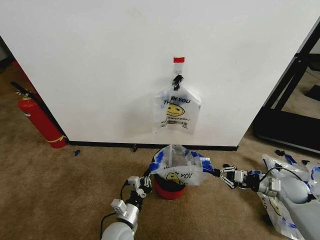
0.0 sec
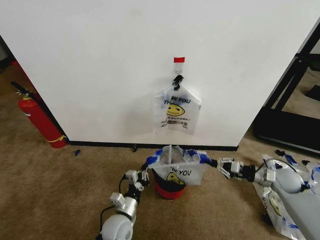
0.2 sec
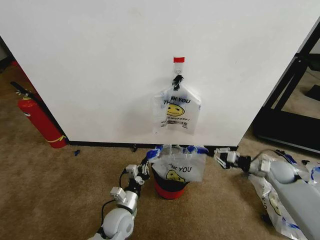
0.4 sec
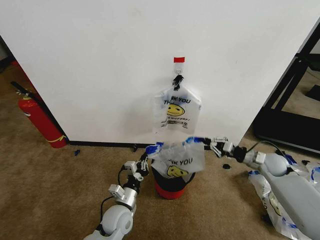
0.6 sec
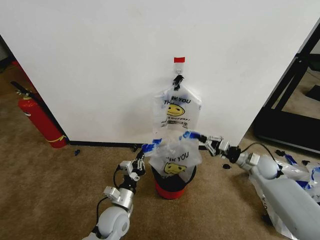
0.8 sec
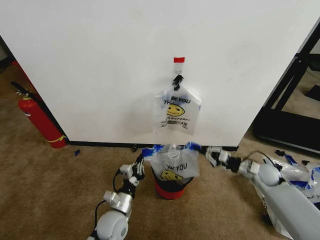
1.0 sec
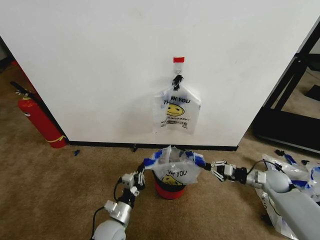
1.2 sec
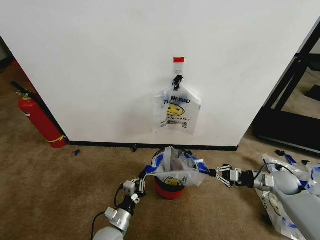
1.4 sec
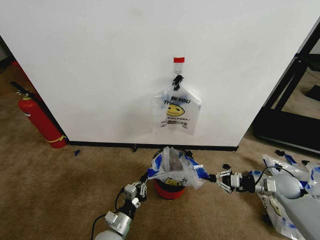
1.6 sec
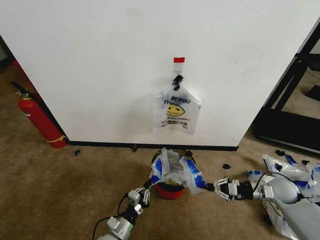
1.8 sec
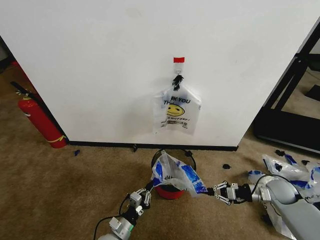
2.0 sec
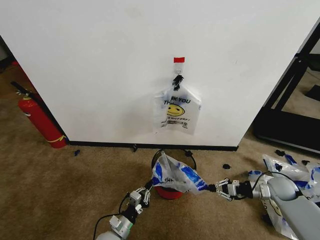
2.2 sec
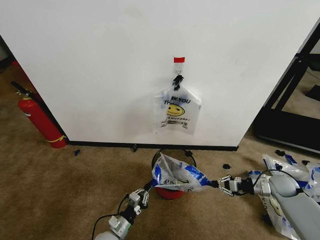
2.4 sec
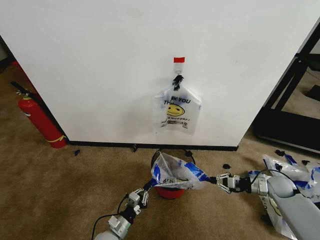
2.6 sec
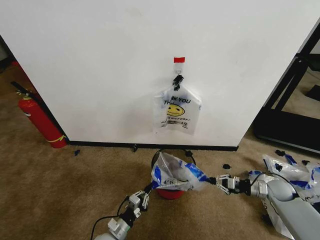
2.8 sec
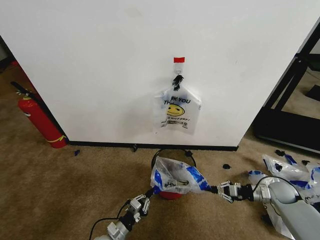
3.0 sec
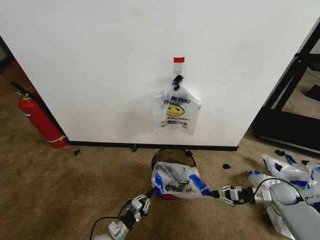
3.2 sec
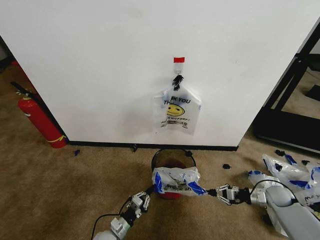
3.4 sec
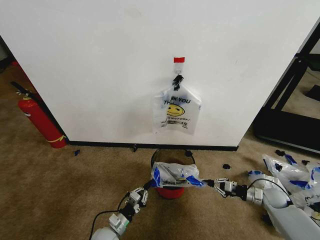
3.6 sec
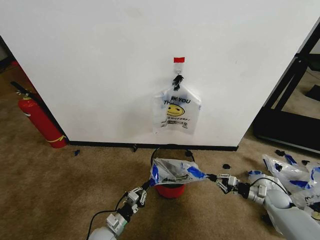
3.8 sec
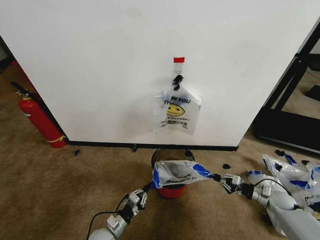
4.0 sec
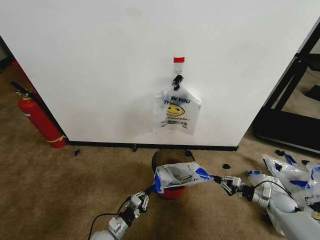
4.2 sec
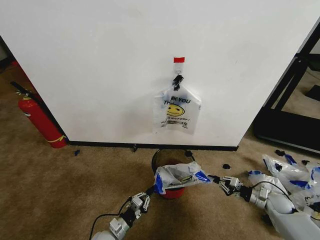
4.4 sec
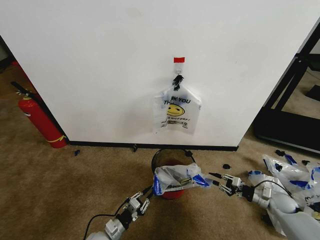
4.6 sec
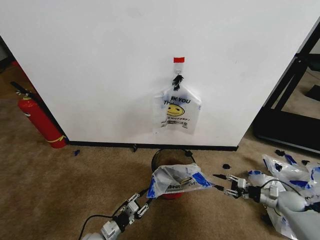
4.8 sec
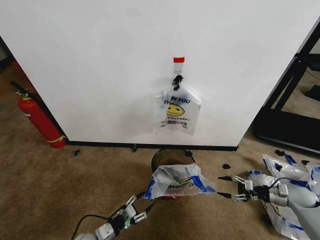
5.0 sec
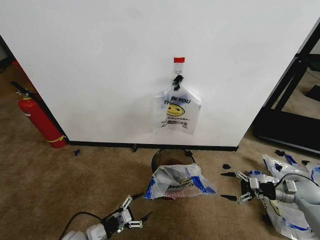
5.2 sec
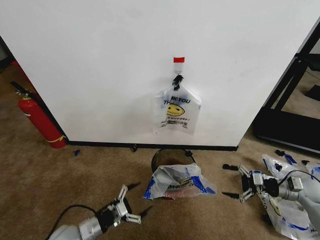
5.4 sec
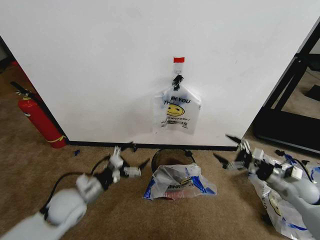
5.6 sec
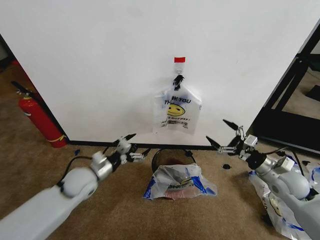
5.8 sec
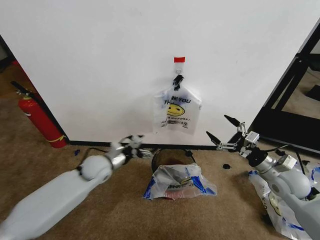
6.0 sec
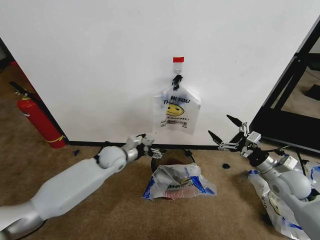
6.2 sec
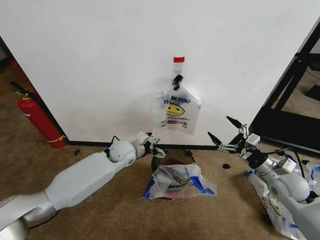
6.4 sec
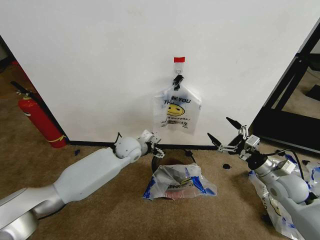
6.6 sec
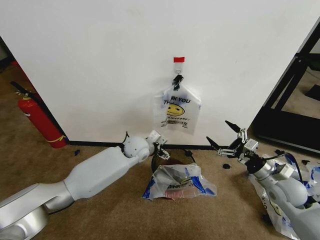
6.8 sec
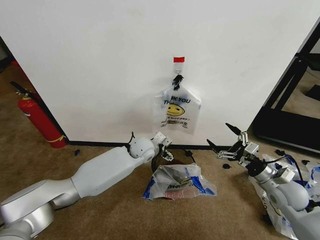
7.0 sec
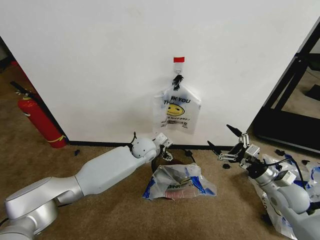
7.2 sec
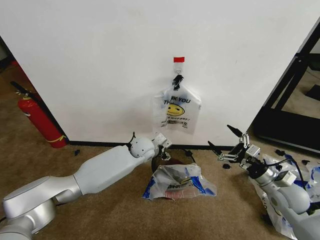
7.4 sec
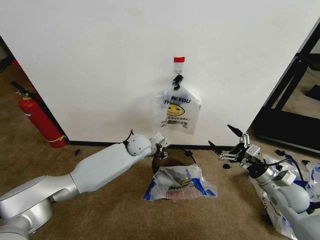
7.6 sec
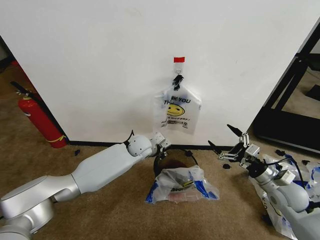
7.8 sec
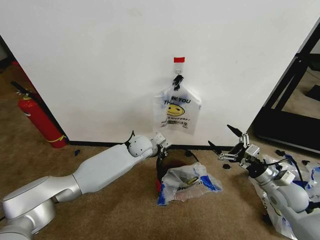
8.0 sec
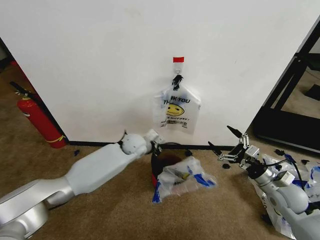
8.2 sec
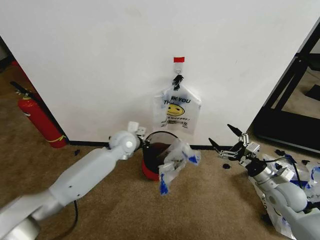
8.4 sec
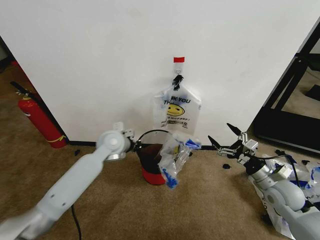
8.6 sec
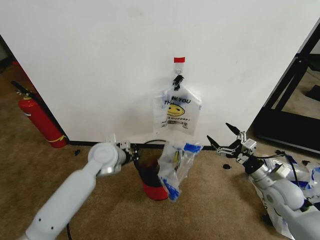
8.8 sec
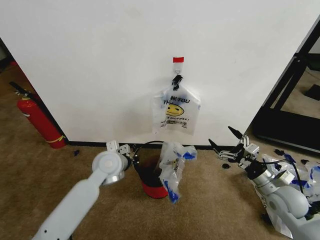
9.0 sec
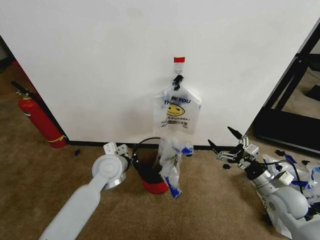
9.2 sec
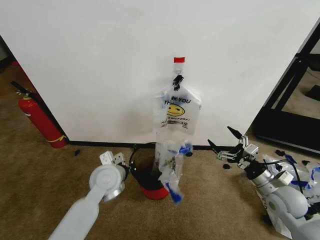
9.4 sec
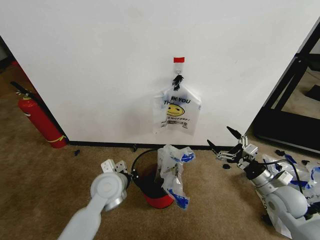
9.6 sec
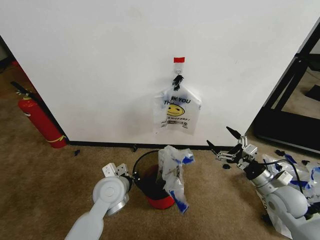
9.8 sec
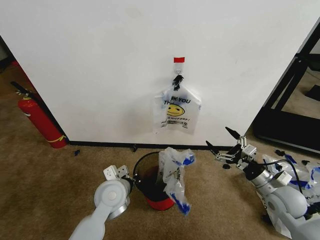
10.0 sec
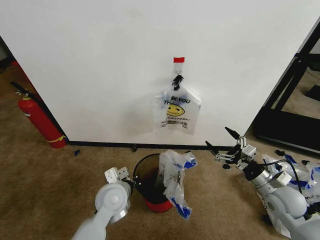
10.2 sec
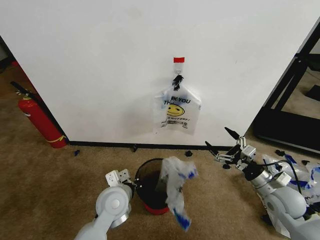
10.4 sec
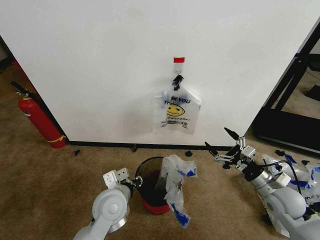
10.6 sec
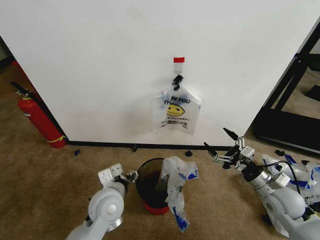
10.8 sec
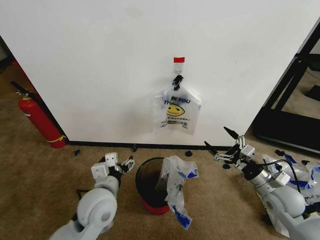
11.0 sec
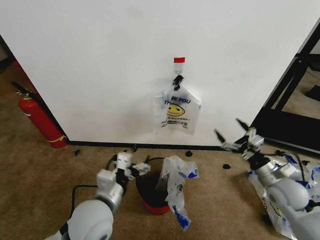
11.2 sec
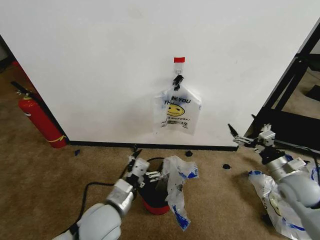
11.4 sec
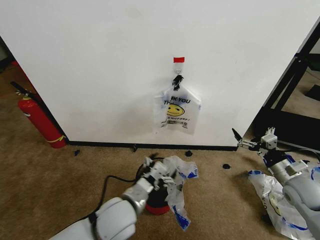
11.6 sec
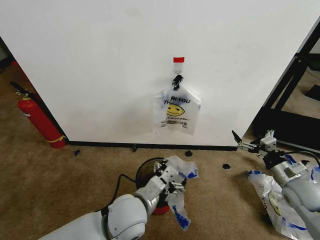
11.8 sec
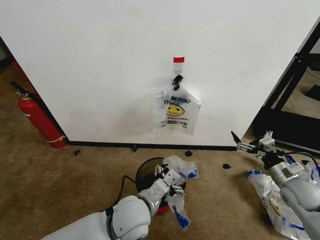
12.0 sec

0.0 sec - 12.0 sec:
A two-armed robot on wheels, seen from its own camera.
Task of the whole recording: Pick up the garbage bag from the wall and place it over the trash bin.
0.0 sec - 1.6 sec: The left gripper ends up some 5 cm from where it was. The right gripper goes forward and returns, about 10 cm each way.
1.6 sec - 3.0 sec: Both grippers move downward, approximately 5 cm.
3.0 sec - 4.4 sec: The right gripper shifts some 5 cm downward.
4.4 sec - 6.0 sec: The right gripper moves upward and to the left, approximately 25 cm, and opens. Meanwhile the left gripper heads upward and forward, covering about 30 cm, and opens its fingers.
6.0 sec - 7.6 sec: The left gripper moves to the right and forward, some 15 cm, and closes.
7.6 sec - 9.0 sec: The left gripper goes about 15 cm backward and to the left, and closes its fingers.
9.0 sec - 10.4 sec: The left gripper goes roughly 10 cm backward.
10.4 sec - 12.0 sec: The right gripper heads to the right, covering approximately 5 cm; the left gripper shifts about 10 cm to the right and backward, and opens up.

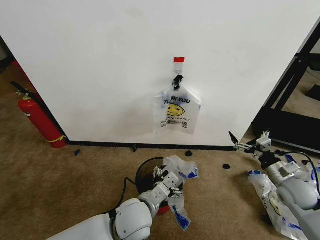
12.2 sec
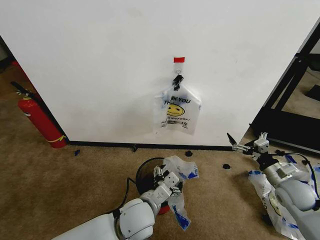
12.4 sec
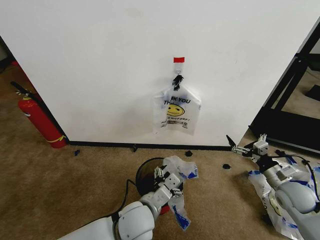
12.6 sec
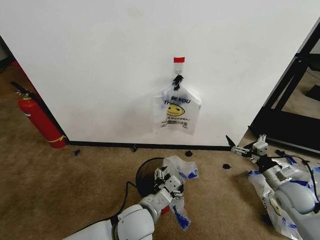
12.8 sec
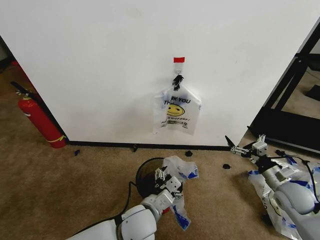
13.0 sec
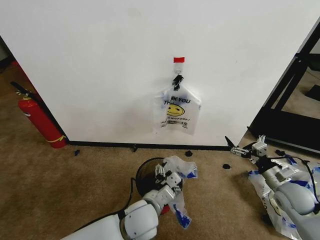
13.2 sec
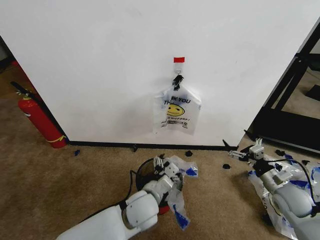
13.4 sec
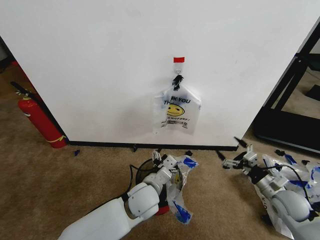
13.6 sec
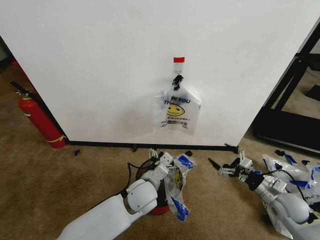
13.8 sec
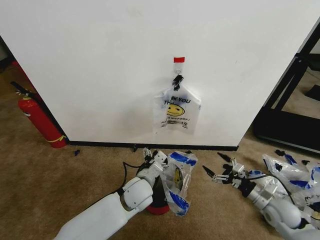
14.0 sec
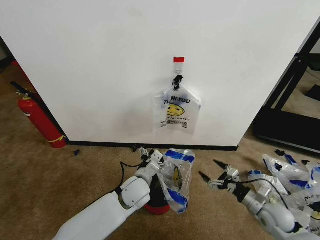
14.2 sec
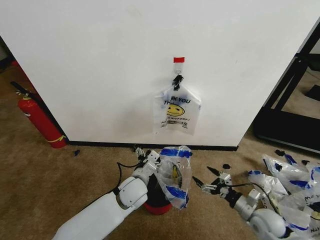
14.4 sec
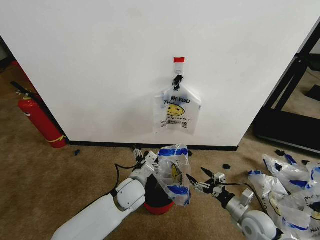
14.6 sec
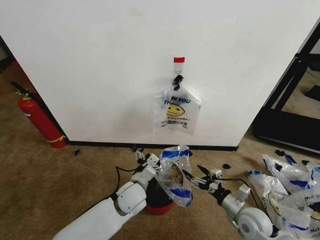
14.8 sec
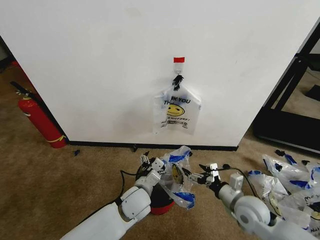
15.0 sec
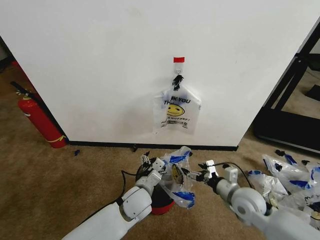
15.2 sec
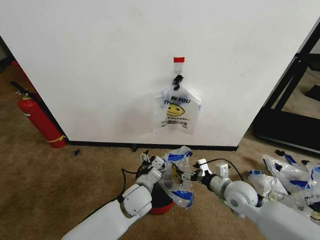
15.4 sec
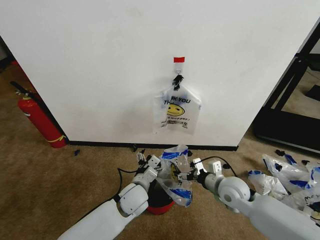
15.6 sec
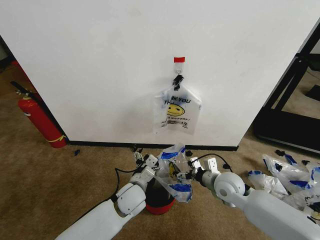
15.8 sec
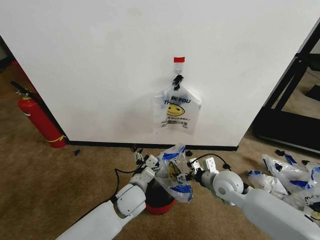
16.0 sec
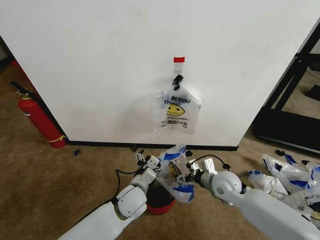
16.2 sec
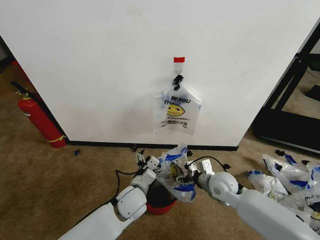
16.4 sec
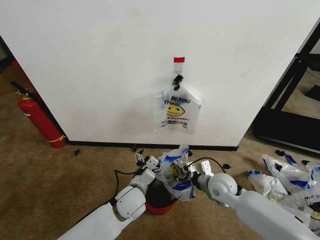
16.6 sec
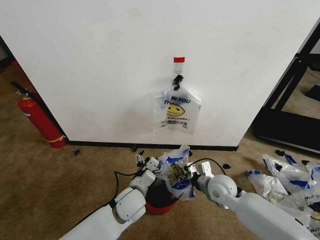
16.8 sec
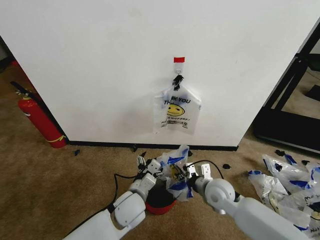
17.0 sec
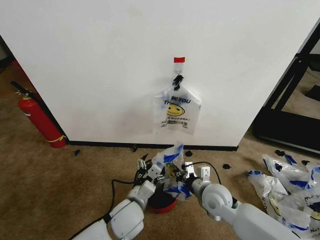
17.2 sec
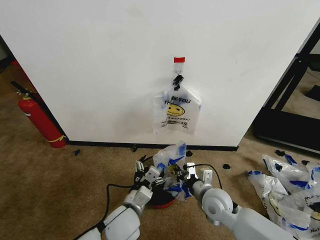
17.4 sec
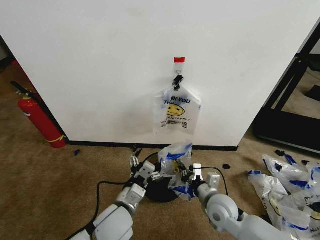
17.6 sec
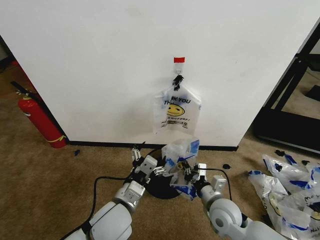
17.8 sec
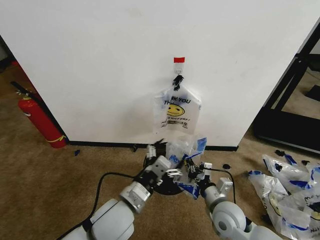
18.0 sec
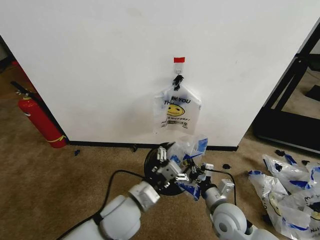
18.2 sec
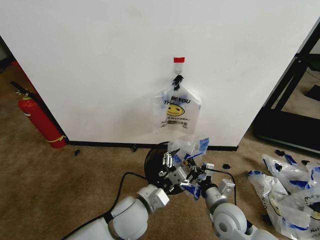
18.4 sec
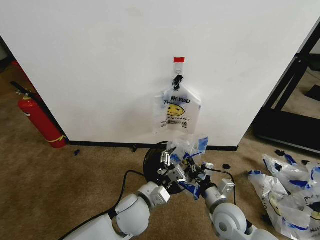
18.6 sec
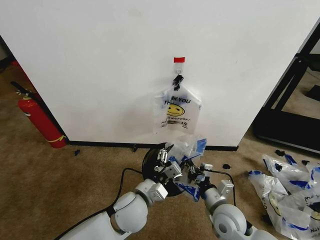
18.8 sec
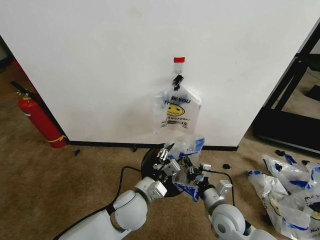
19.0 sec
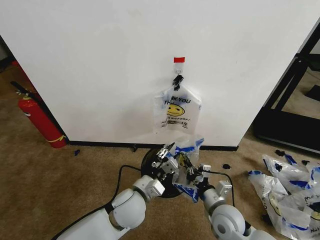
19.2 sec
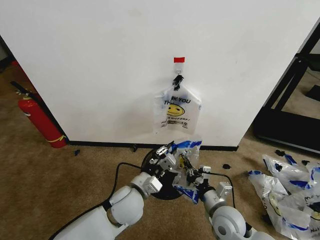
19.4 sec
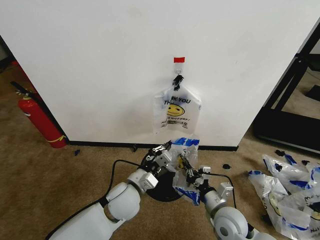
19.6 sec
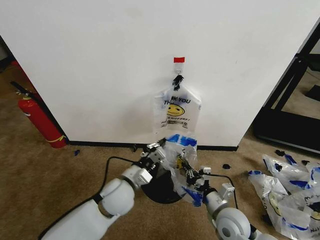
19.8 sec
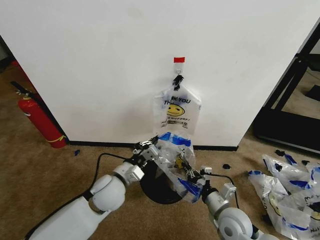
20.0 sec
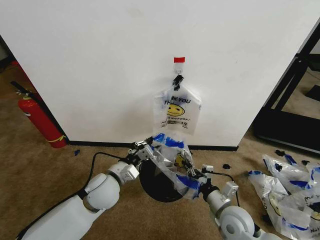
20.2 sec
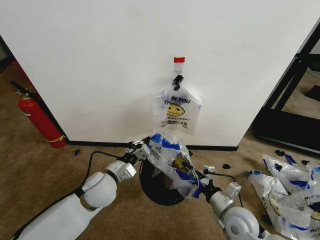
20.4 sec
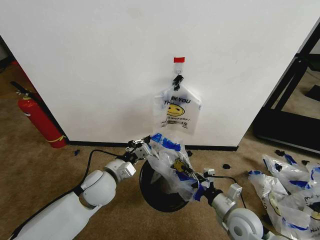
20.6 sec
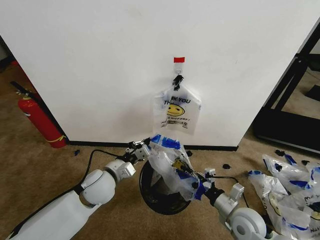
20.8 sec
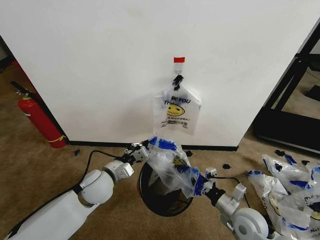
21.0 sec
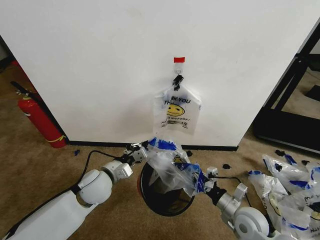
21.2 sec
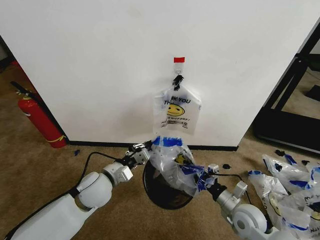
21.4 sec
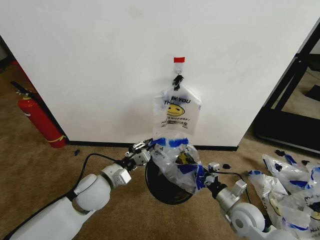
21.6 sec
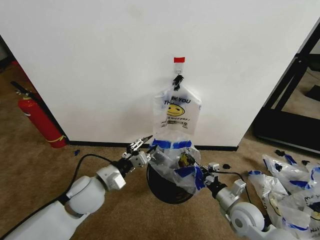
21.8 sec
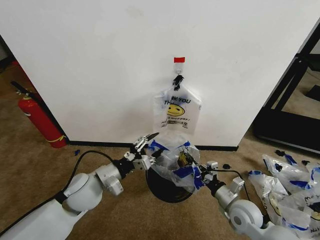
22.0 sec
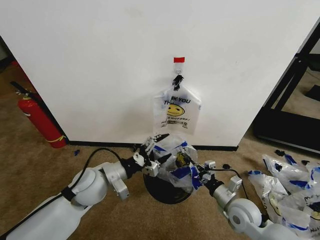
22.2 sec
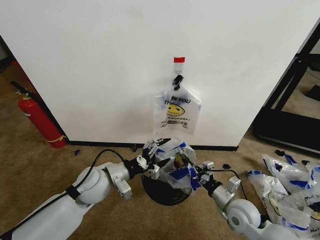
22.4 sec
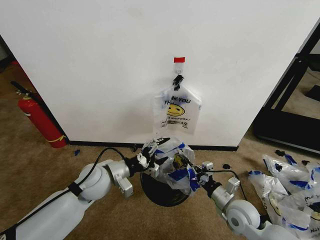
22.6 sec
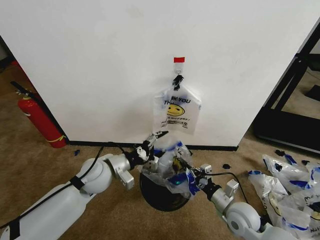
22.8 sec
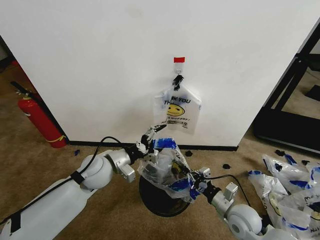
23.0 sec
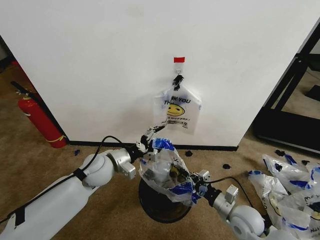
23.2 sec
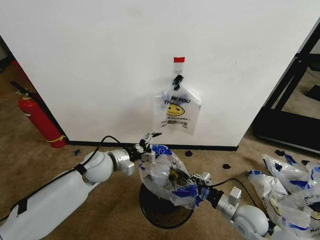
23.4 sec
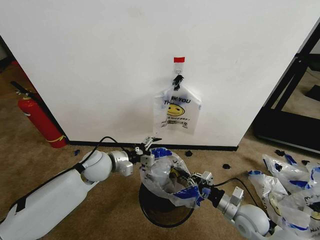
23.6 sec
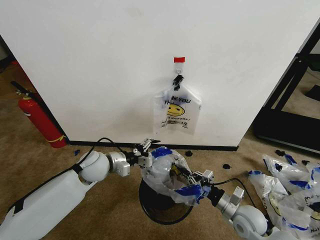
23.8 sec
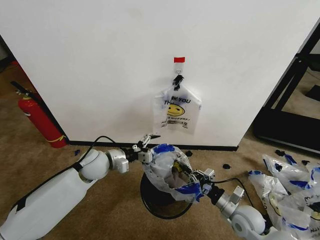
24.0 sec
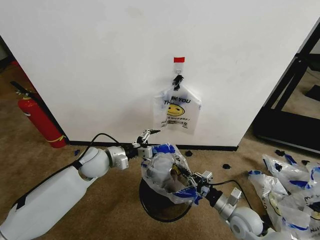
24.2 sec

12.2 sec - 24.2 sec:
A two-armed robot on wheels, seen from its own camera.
Task of the whole recording: Pick up the garbage bag from the wall and place it over the trash bin.
12.2 sec - 13.8 sec: The left gripper travels forward by roughly 10 cm; the right gripper ends up roughly 5 cm from where it was.
13.8 sec - 15.2 sec: The right gripper moves to the left, some 15 cm.
15.2 sec - 16.6 sec: The right gripper travels to the left and forward by some 10 cm, and closes its fingers.
16.6 sec - 18.2 sec: The right gripper heads backward, covering about 10 cm, and closes. The left gripper goes roughly 10 cm upward and backward.
18.2 sec - 19.8 sec: The left gripper travels forward by approximately 5 cm, and closes its fingers.
19.8 sec - 21.2 sec: The right gripper moves to the right, roughly 5 cm; the left gripper travels to the left by roughly 10 cm.
21.2 sec - 22.6 sec: The left gripper opens.
22.6 sec - 24.2 sec: The left gripper goes approximately 5 cm forward.
